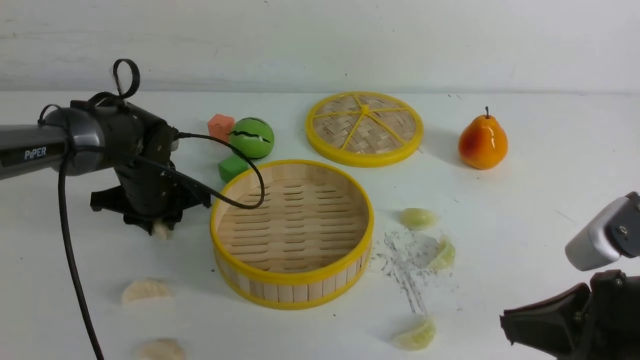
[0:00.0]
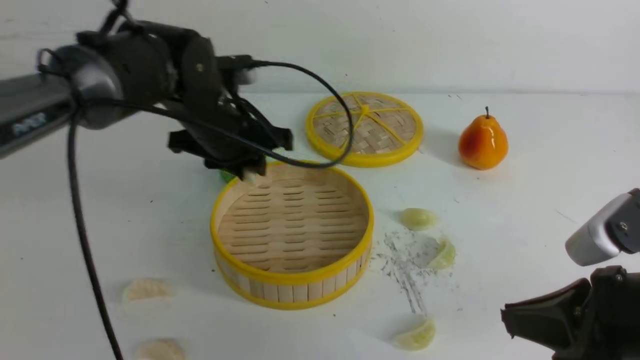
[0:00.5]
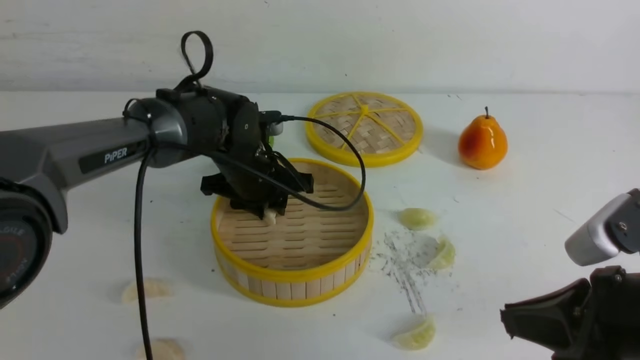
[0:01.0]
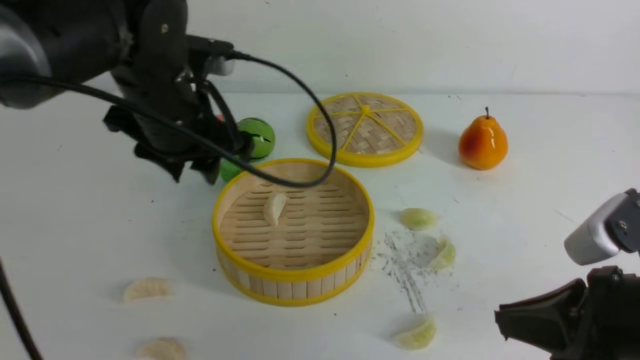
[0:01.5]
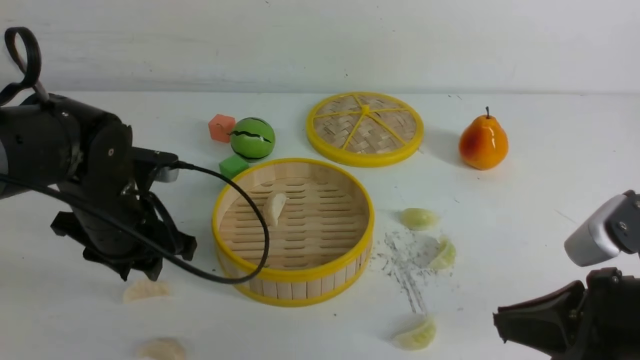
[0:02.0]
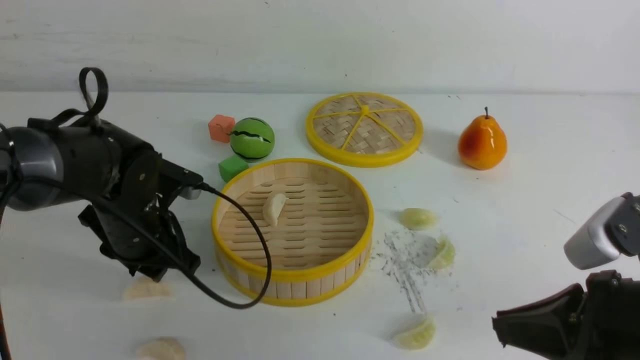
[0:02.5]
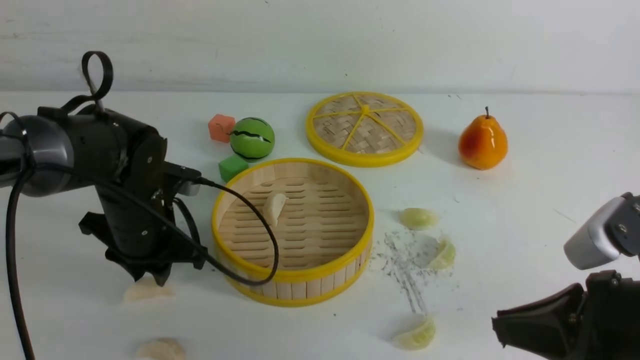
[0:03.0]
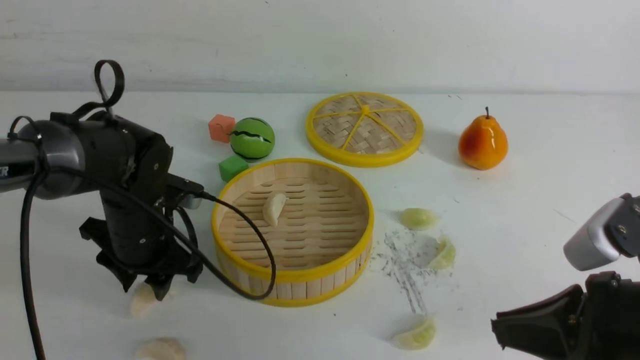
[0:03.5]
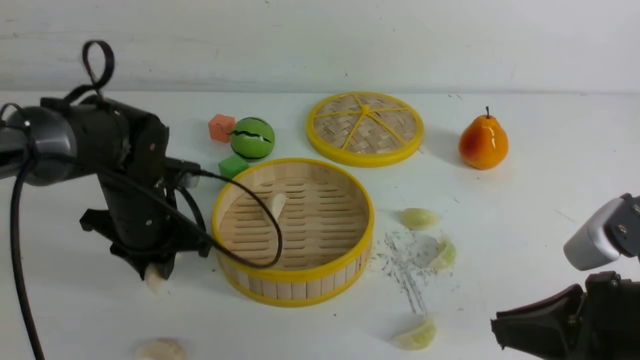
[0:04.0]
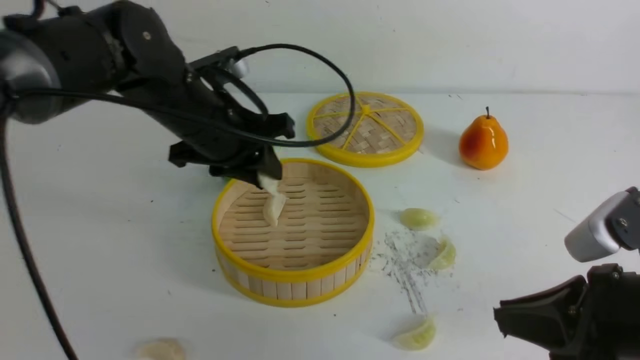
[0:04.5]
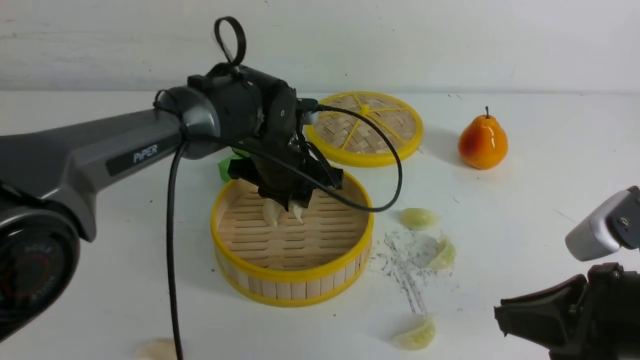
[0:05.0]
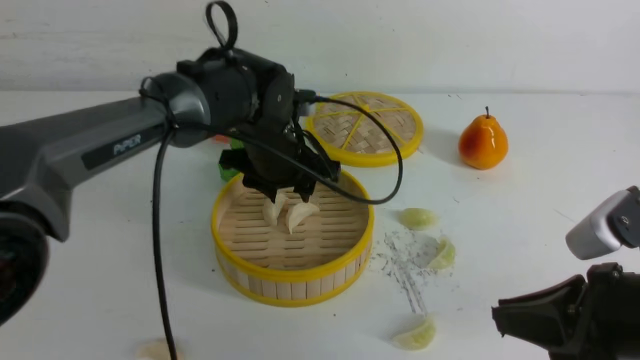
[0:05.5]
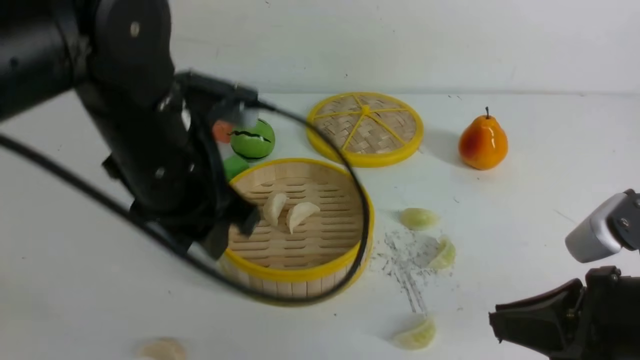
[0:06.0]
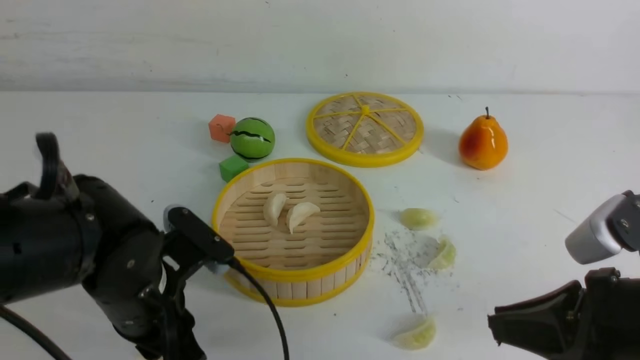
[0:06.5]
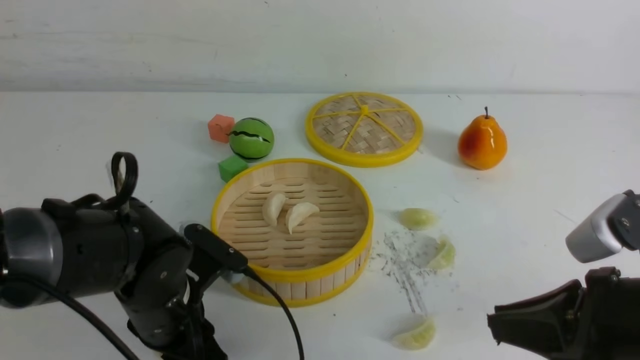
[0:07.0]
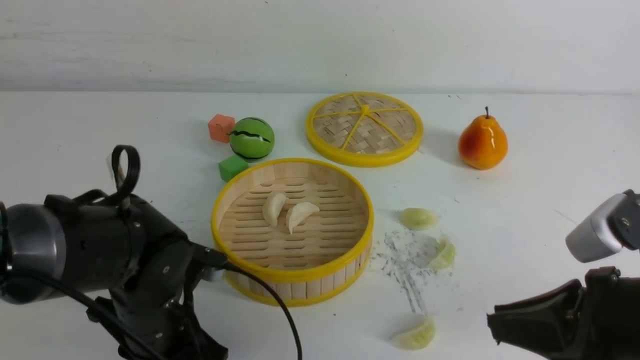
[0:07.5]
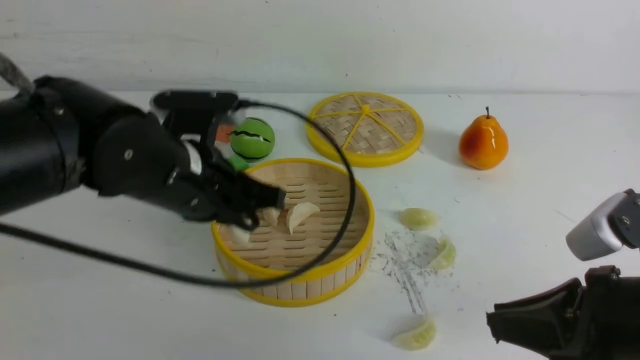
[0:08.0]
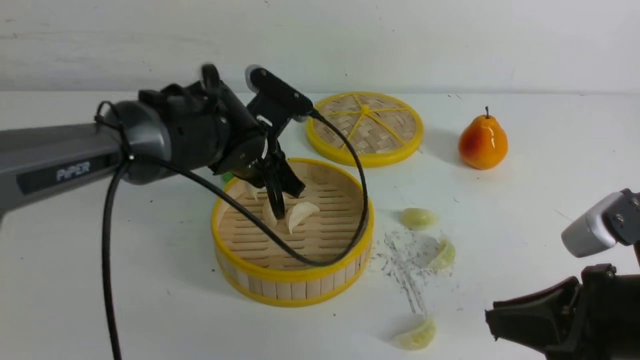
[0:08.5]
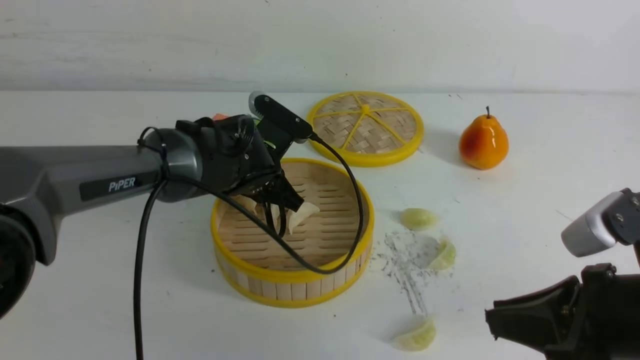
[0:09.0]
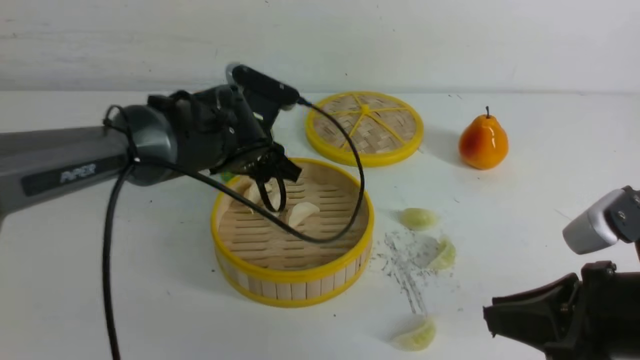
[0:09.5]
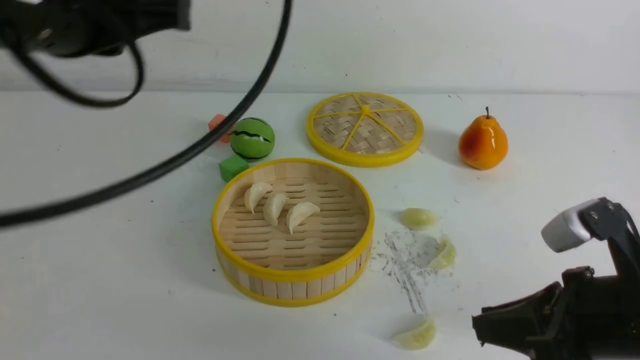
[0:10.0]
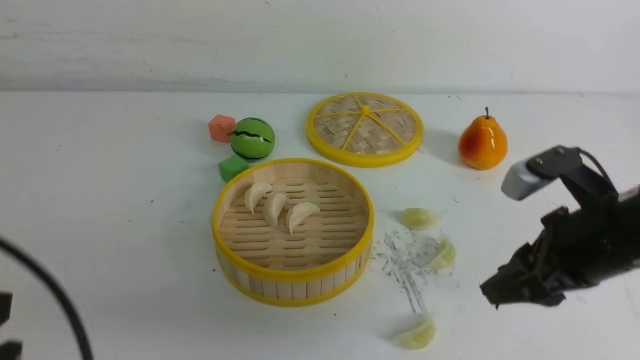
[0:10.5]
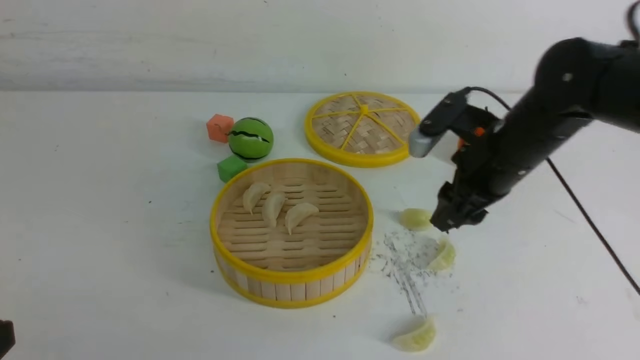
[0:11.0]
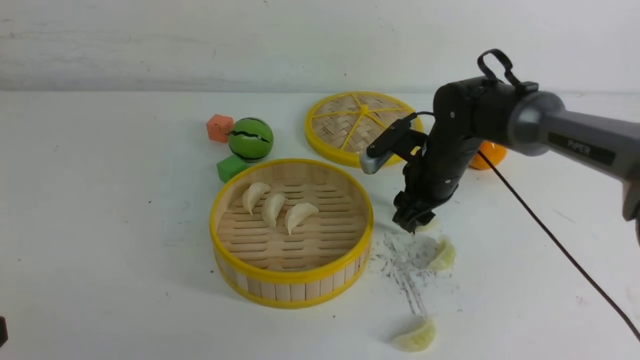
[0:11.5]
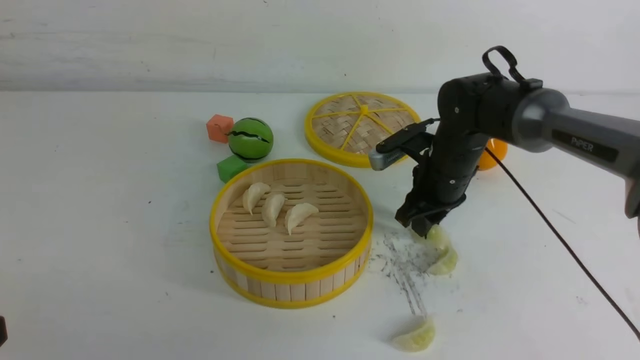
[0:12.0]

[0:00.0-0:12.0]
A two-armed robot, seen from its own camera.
Task of the whole recording: put the dumplings into the steamer on the white table.
Step, 0:00.5 to 0:01.0: use the left arm to put the dumpling into the steamer.
Step, 0:01.5 to 0:04.0: use the left arm to grab a dumpling.
Step, 0:04.5 to 0:05.5: use the left arm to put the dumpling into the steamer.
Step, 0:06.0 to 0:07.5: use the left arm to grab a dumpling.
Step, 0:08.0 to 0:09.5: use the left arm to put the dumpling into the steamer.
0:00.0 to 0:02.0: The left gripper goes approximately 10 cm backward, and moves roughly 10 cm to the right and comes back.
0:02.0 to 0:04.0: There are only small adjustments of the grippers.
0:04.0 to 0:06.0: The left gripper heads upward, backward and to the right, covering roughly 15 cm.
0:06.0 to 0:08.0: The left gripper reaches approximately 15 cm downward, then returns, and closes up.
0:08.0 to 0:10.0: The left gripper goes about 15 cm upward and backward, and opens, then closes once more.
0:10.0 to 0:12.0: The right gripper is displaced forward by some 25 cm, and opens, then closes once more. The left gripper heads backward, downward and to the left, covering roughly 25 cm.

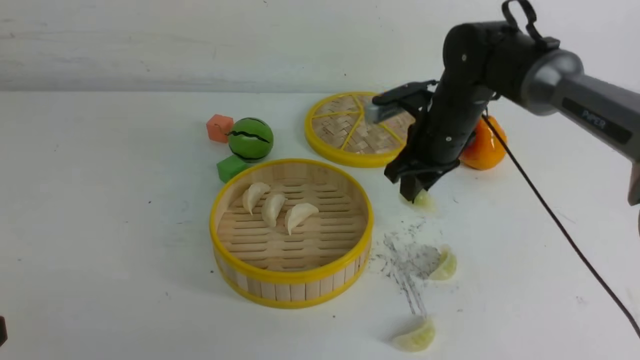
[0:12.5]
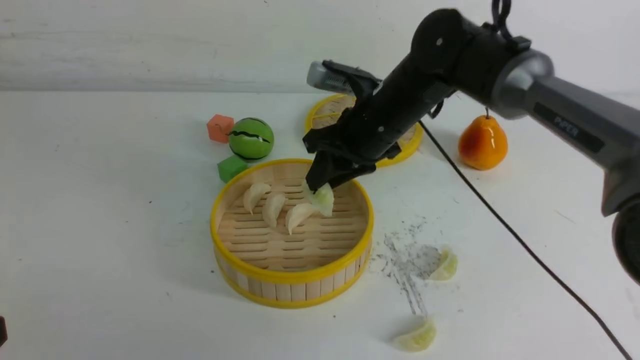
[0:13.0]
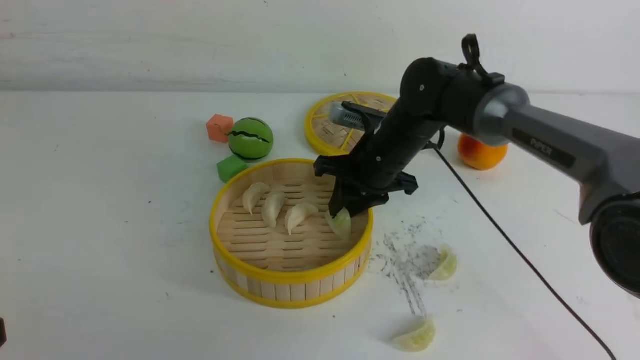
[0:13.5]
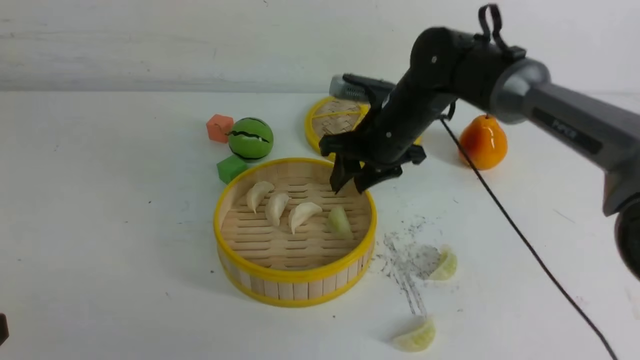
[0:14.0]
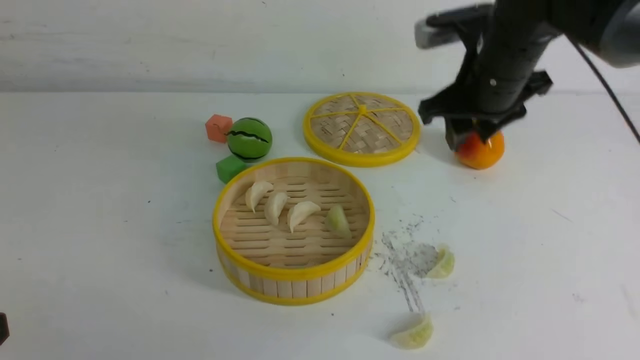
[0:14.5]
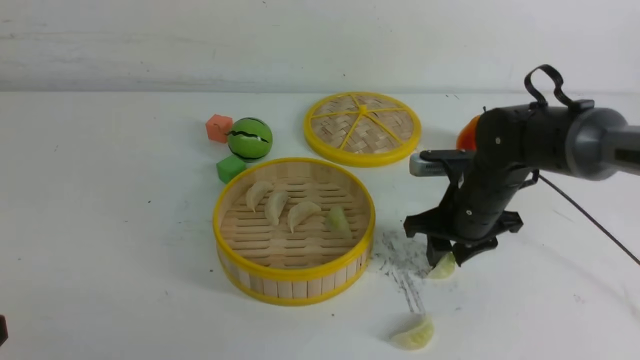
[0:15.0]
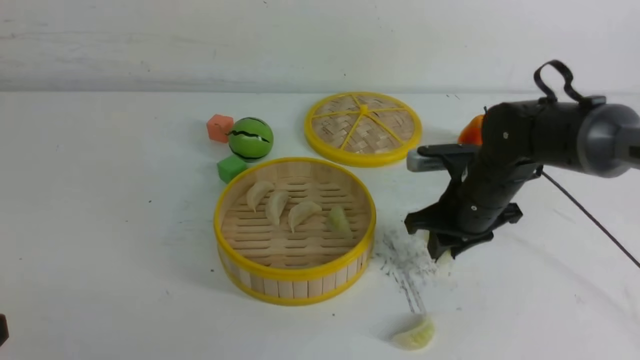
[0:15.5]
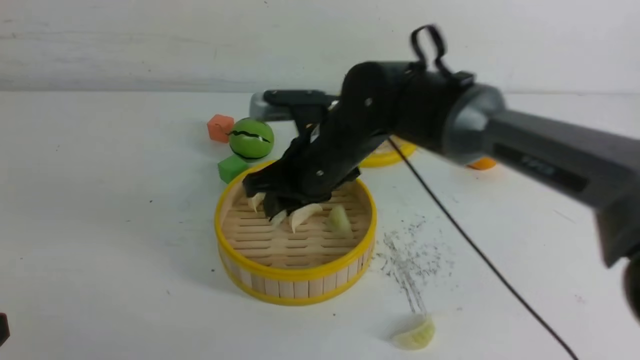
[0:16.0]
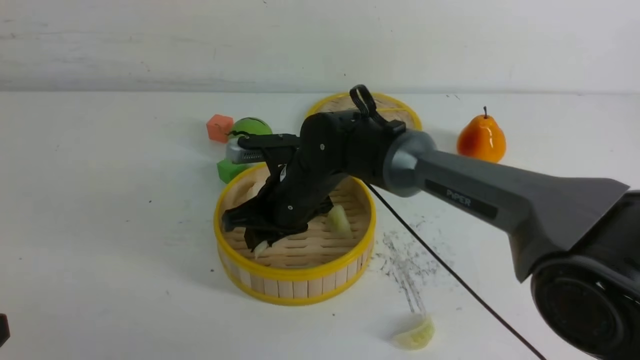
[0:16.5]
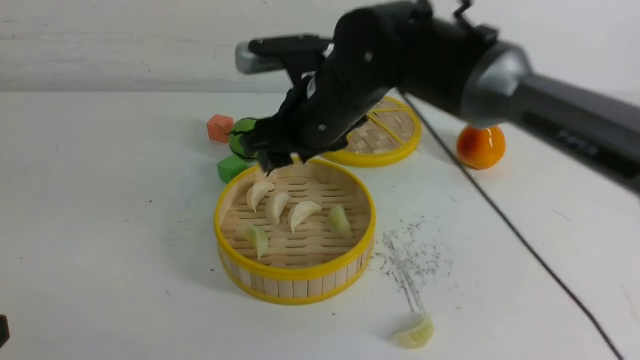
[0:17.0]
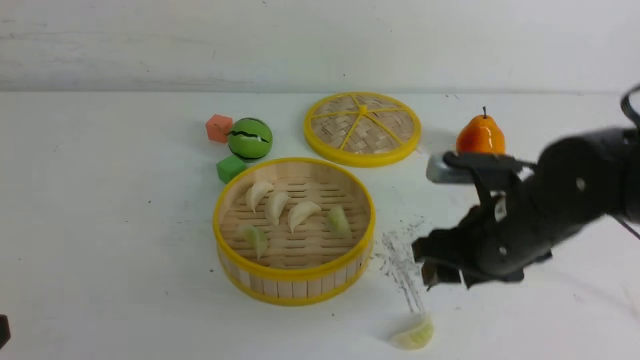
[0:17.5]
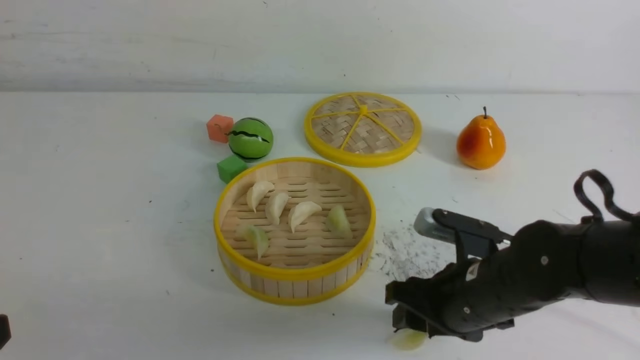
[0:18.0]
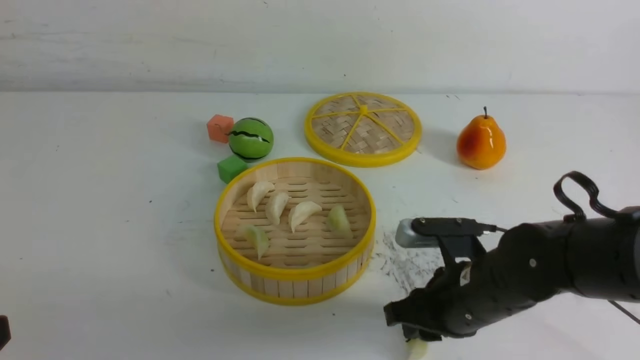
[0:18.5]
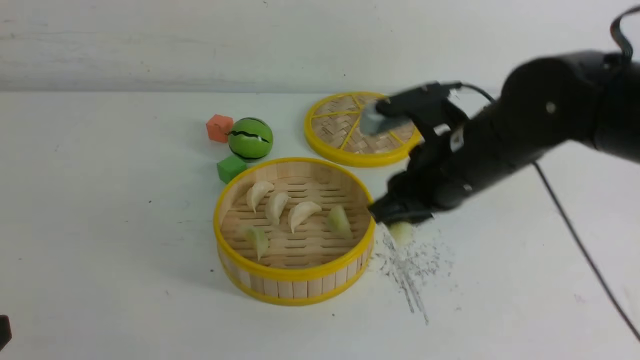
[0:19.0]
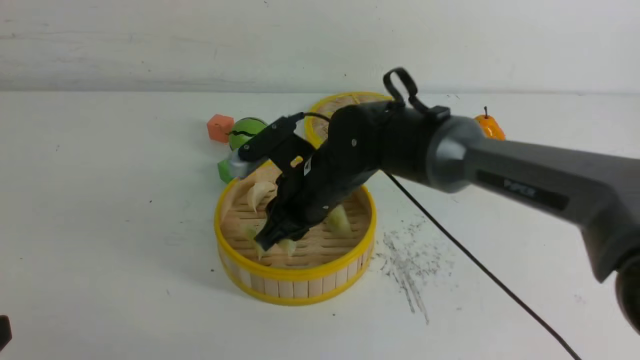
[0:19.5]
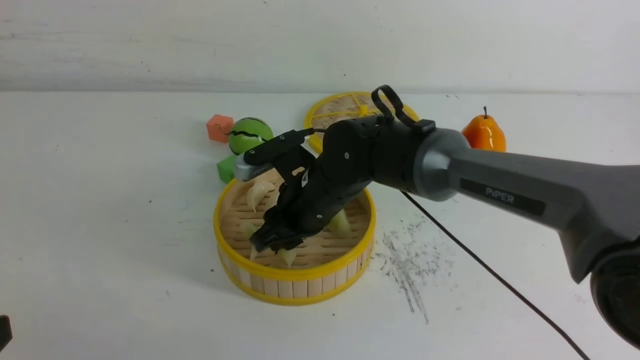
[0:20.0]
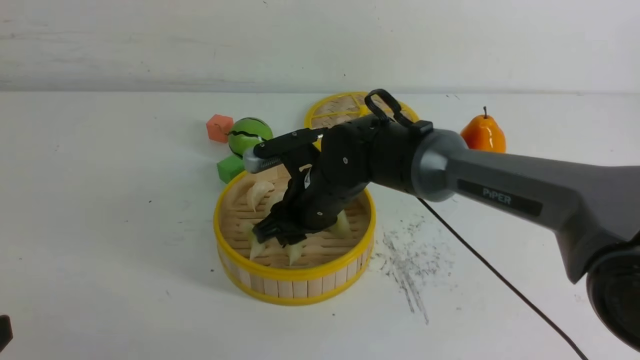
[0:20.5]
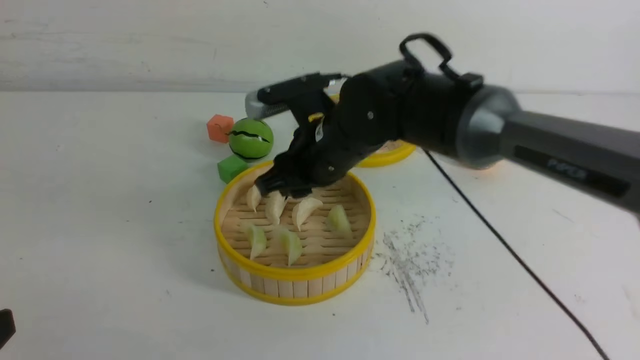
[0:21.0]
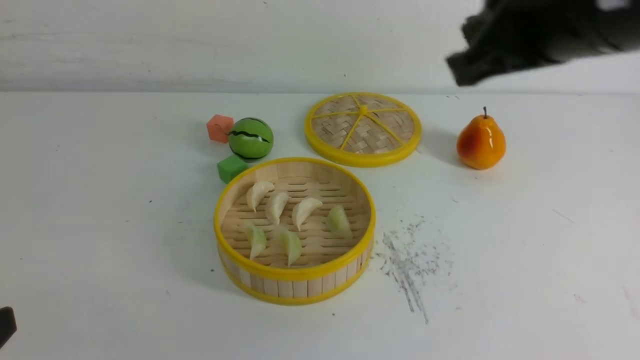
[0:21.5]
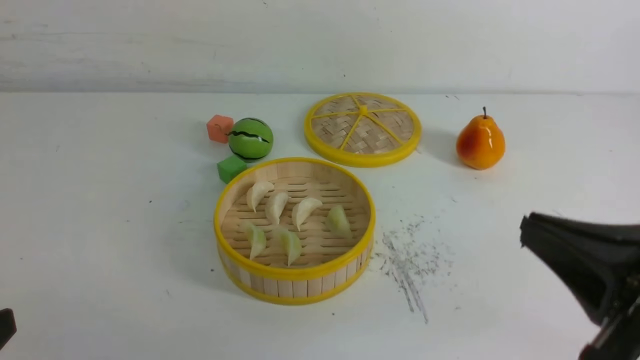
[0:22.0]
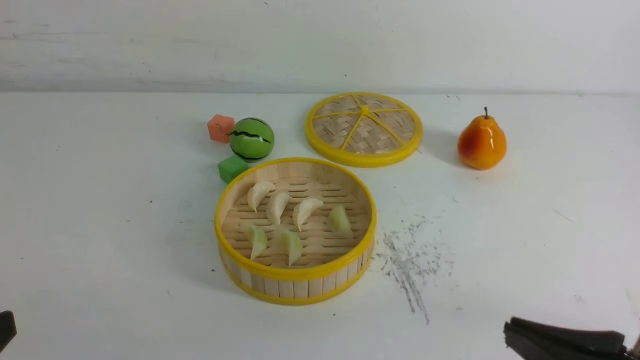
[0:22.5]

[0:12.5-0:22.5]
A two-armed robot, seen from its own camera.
Task of the whole recording: put the dumplings into the steamer on the white table.
Step, 0:12.5 to 0:13.5: use the right arm to put the dumpling into the steamer.
Step, 0:14.0 to 0:15.5: use the right arm to grab a dumpling.
Step, 0:16.0 to 0:16.5: use the right arm to put the dumpling into the steamer.
Step, 0:17.0 to 0:18.5: use the right arm to grab a dumpling.
Step, 0:19.0 to 0:21.0: use the right arm to put the dumpling into the steamer.
0:12.5 to 0:14.5: The right gripper moves upward, approximately 5 cm.
0:14.5 to 0:16.5: The right gripper heads to the left and downward, covering roughly 20 cm.
0:16.5 to 0:18.5: The right gripper heads to the right and backward, covering about 20 cm.
0:18.5 to 0:20.5: The right gripper heads to the left and forward, covering roughly 20 cm.
0:20.5 to 0:22.5: The right gripper goes about 40 cm backward and to the right, and closes up.
